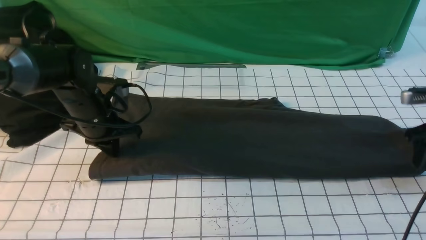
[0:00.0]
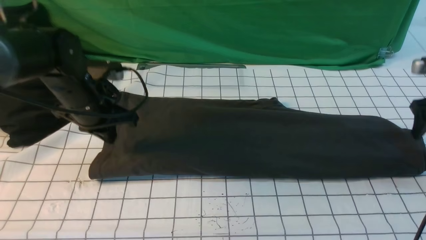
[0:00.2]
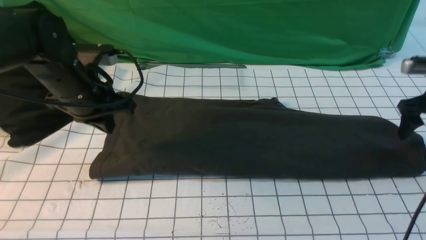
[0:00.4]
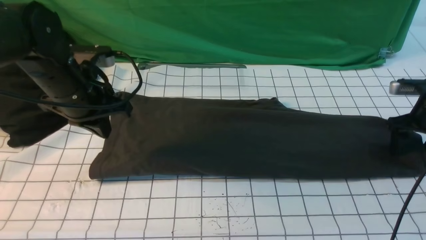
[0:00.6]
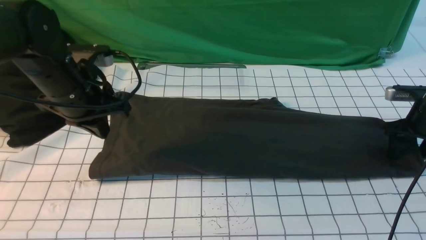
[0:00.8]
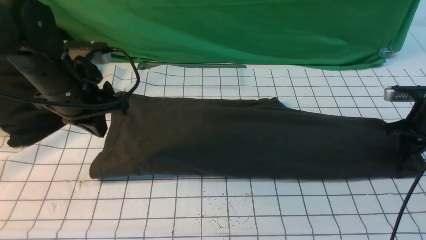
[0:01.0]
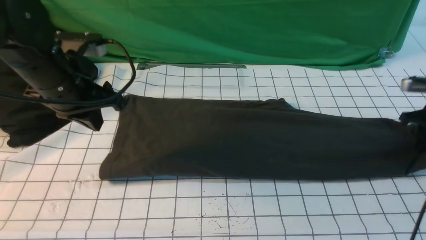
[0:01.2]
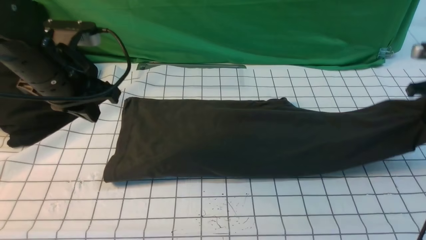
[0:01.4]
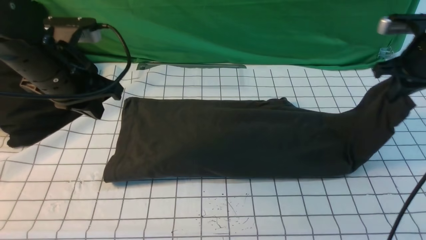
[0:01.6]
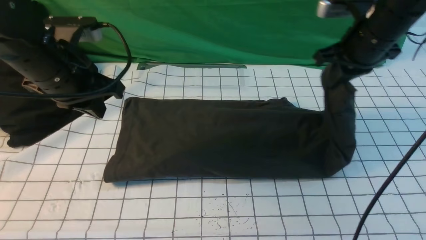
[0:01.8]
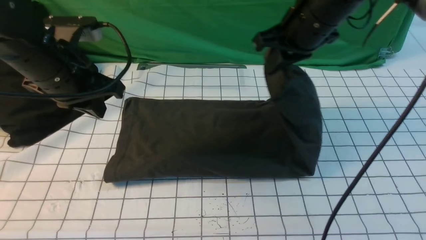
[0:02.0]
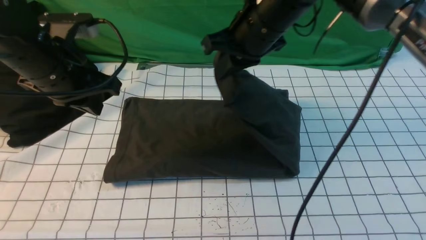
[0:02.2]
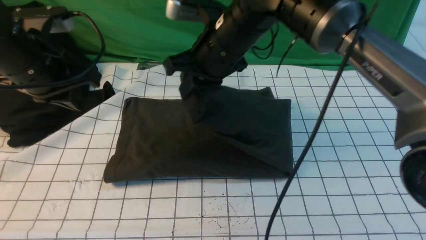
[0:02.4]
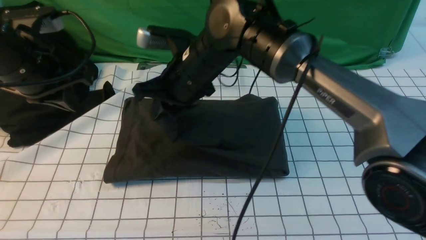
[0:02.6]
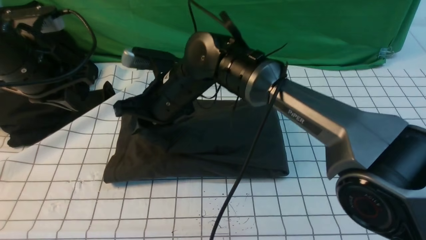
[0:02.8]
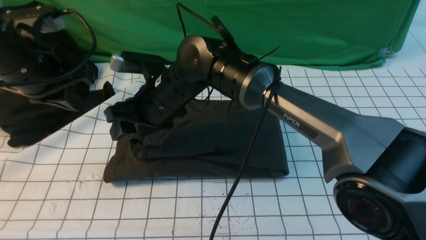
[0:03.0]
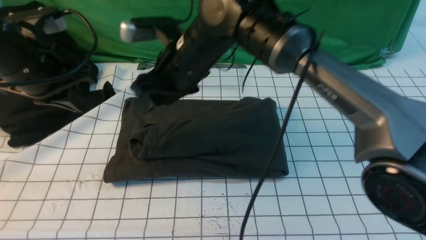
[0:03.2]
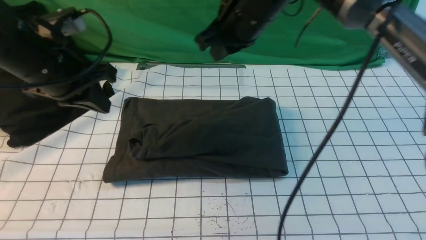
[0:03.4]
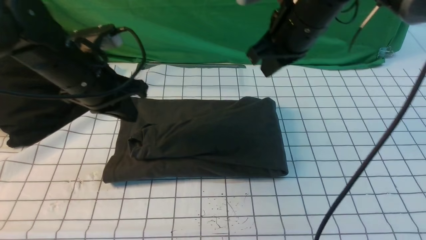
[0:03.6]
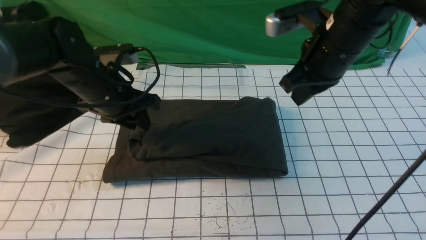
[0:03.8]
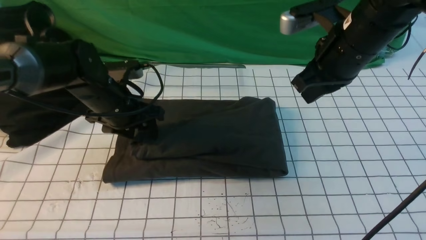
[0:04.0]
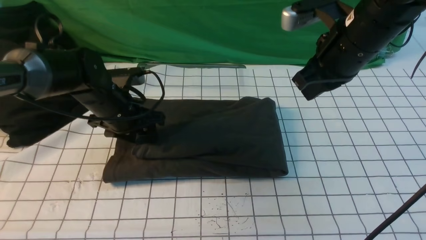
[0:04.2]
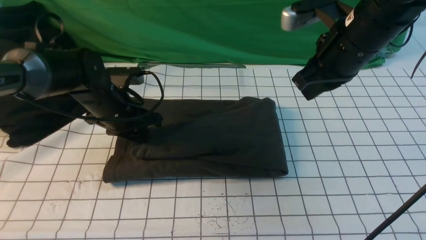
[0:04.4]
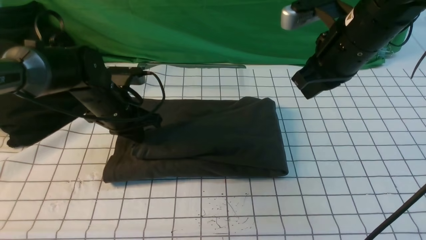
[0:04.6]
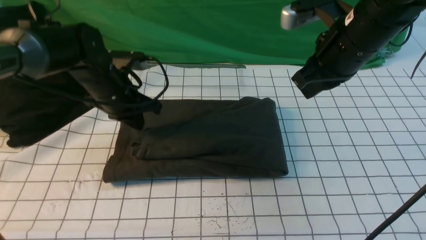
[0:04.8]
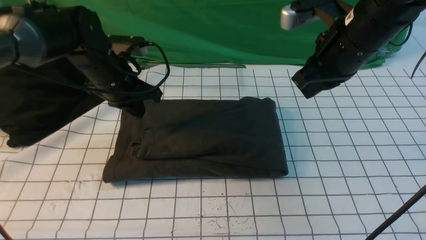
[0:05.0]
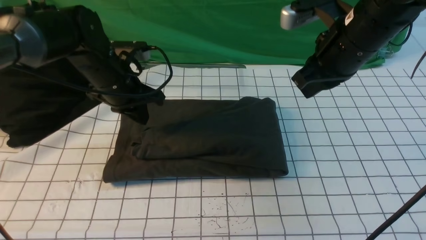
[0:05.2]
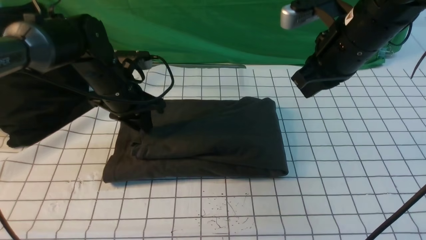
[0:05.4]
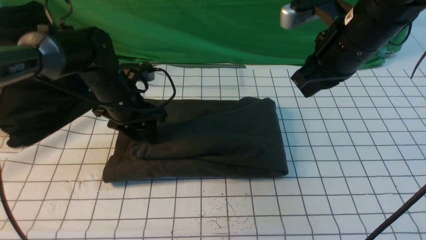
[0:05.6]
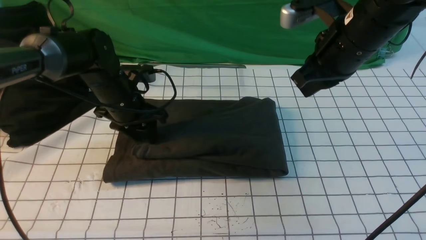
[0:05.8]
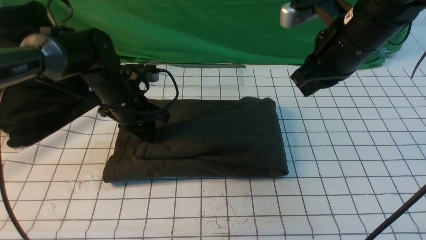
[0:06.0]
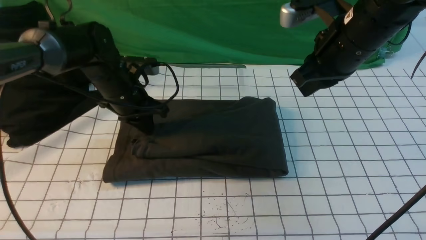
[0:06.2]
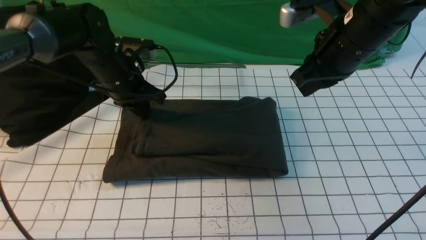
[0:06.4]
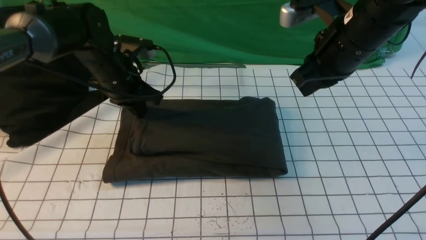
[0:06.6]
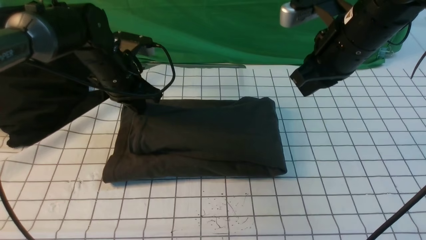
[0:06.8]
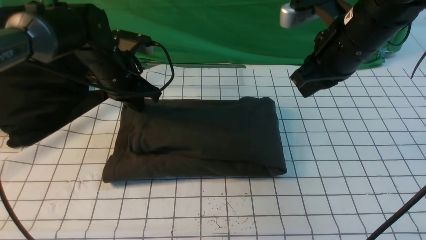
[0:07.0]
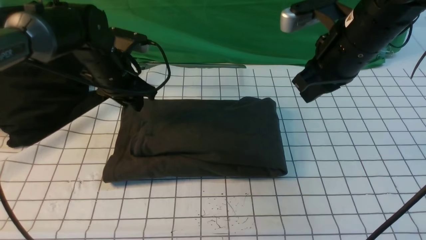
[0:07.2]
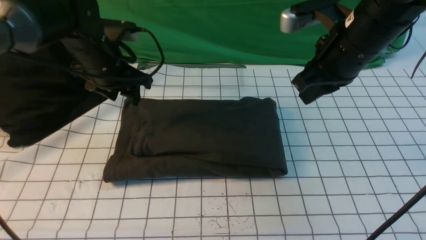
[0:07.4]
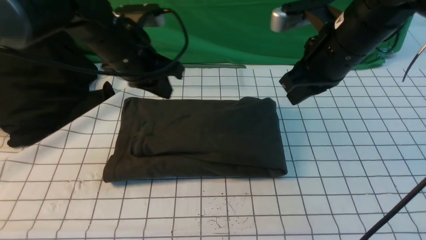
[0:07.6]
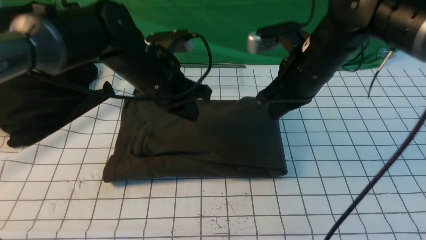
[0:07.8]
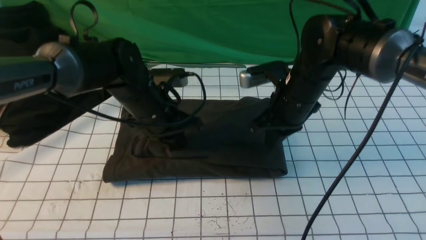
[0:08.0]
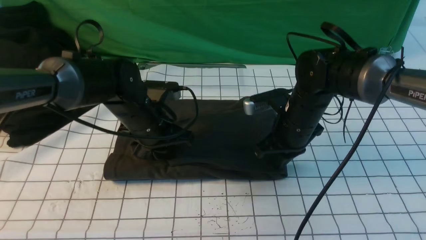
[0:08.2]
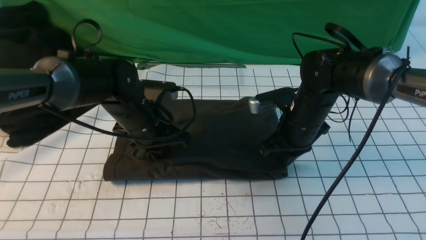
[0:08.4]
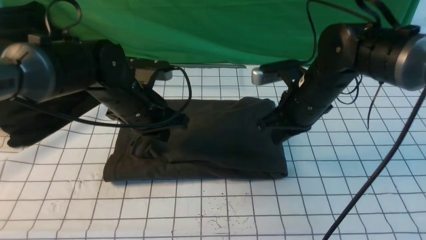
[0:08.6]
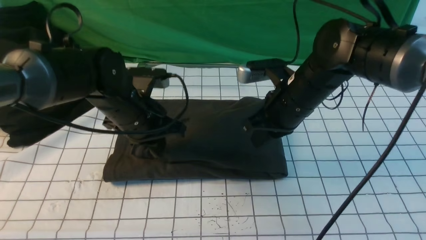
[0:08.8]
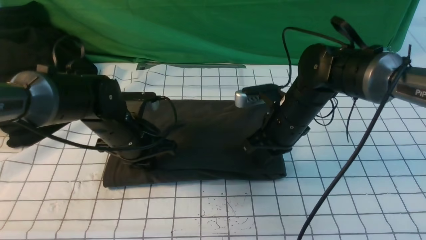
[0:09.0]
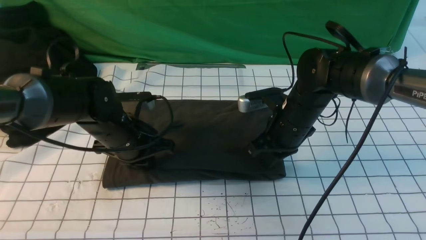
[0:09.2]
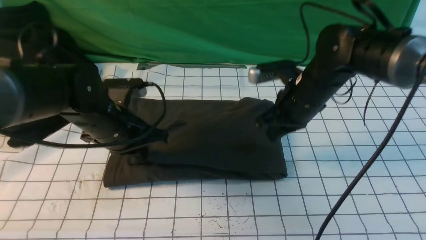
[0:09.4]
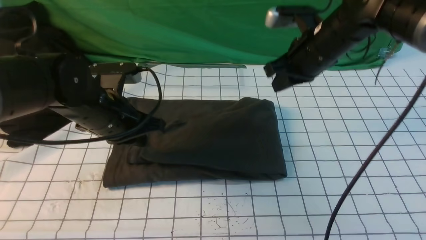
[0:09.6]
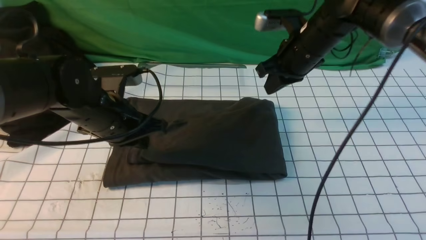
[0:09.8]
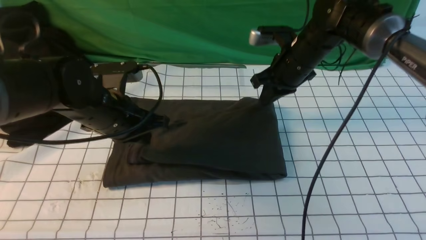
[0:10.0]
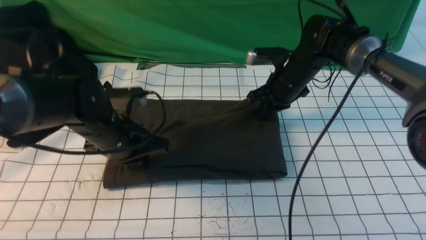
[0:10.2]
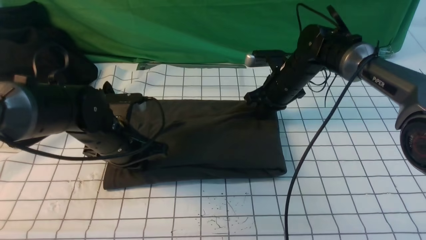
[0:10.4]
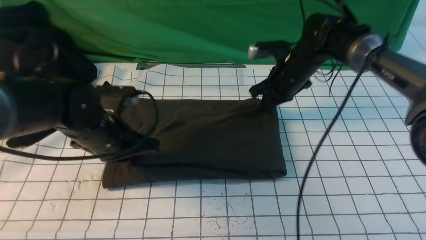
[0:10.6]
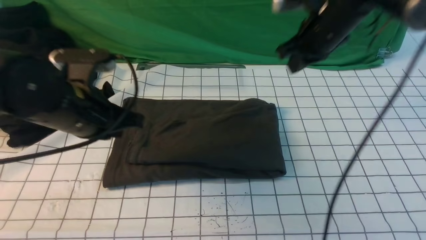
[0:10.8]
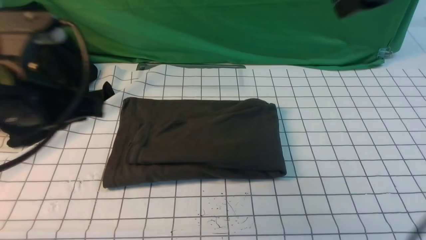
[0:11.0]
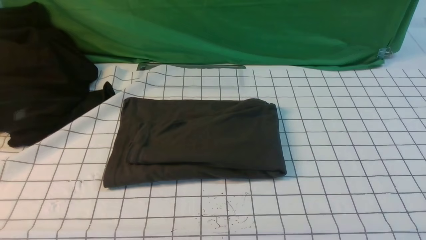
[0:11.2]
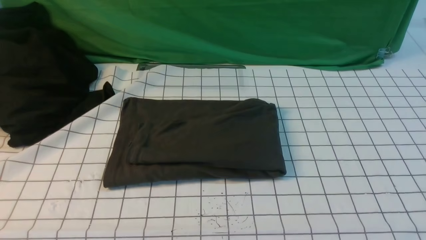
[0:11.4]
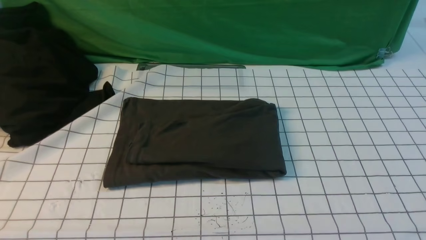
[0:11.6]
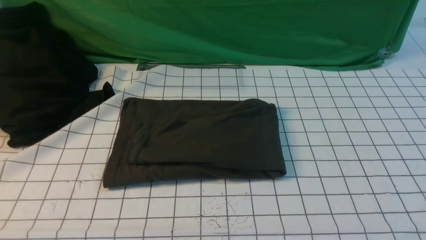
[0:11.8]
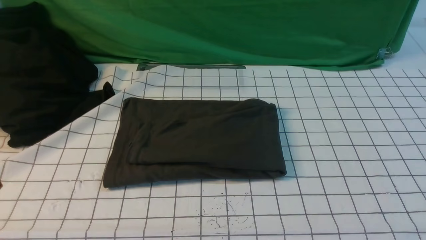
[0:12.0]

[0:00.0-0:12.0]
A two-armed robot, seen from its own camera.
Step, 0:01.4 to 0:03.2: use the right arm to drag the right edge of the fabric to the left and folds it over the left edge.
0:00.0 to 0:01.6: The left gripper goes roughly 10 cm upward and backward, while the right gripper goes some 15 cm to the left and upward, and closes.
0:01.6 to 0:03.0: The right gripper goes about 35 cm to the left, and opens up.
0:03.0 to 0:04.4: The left gripper goes about 15 cm downward, forward and to the right, and opens its fingers. Meanwhile the right gripper is displaced to the right by roughly 25 cm, and closes.
0:04.4 to 0:06.0: The grippers make only small movements.
0:06.0 to 0:07.6: The left gripper heads upward, covering some 10 cm.
0:07.6 to 0:09.0: The two grippers go some 10 cm downward.
0:09.0 to 0:10.4: The right gripper travels forward by approximately 10 cm.
0:10.4 to 0:12.0: The right gripper goes about 50 cm backward and to the right. Meanwhile the left gripper heads backward and upward, covering about 30 cm.

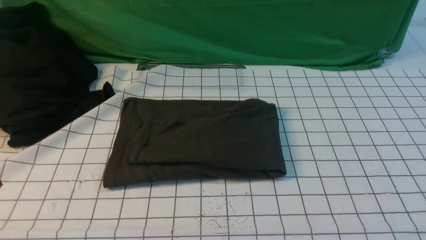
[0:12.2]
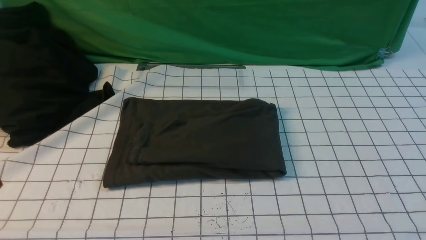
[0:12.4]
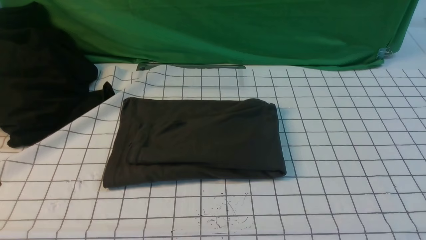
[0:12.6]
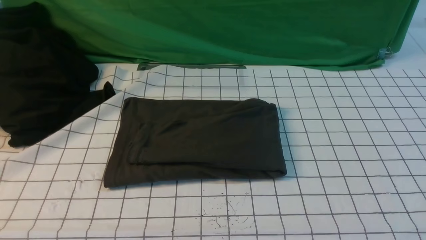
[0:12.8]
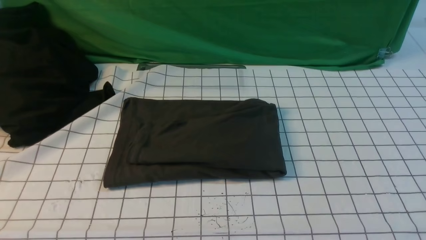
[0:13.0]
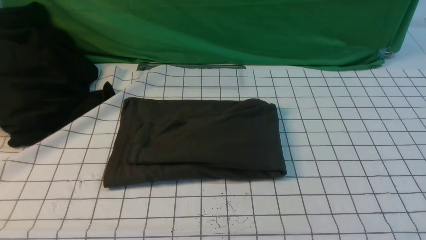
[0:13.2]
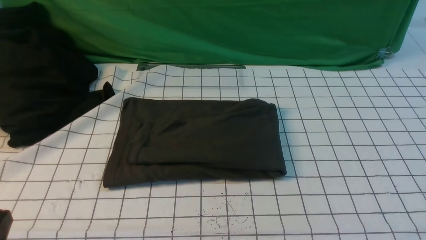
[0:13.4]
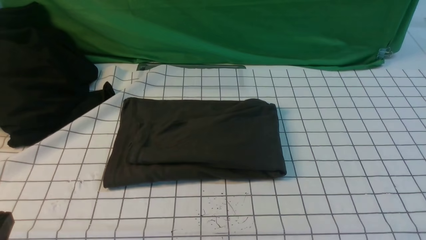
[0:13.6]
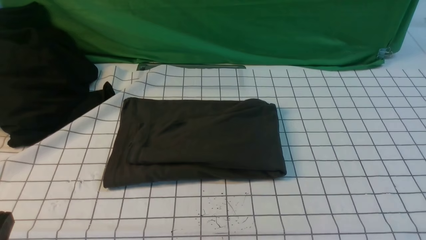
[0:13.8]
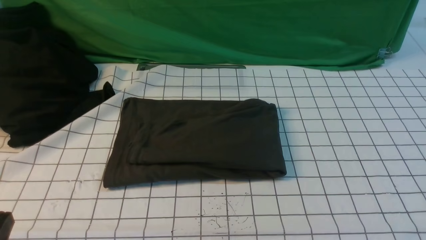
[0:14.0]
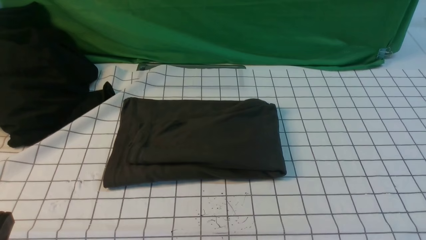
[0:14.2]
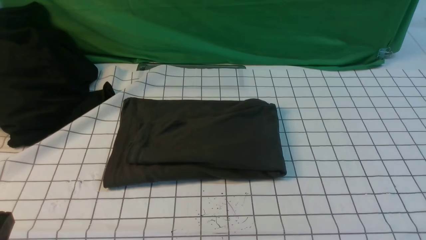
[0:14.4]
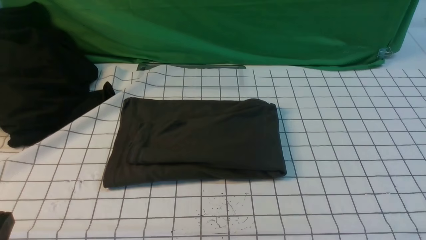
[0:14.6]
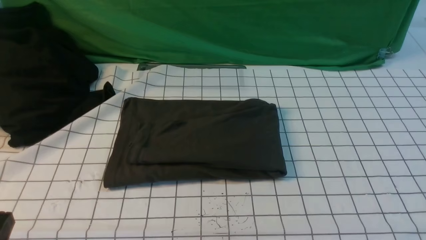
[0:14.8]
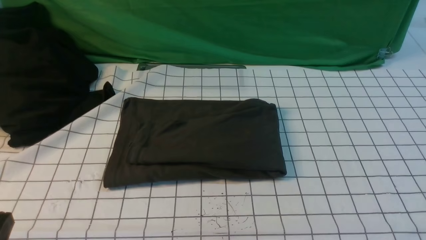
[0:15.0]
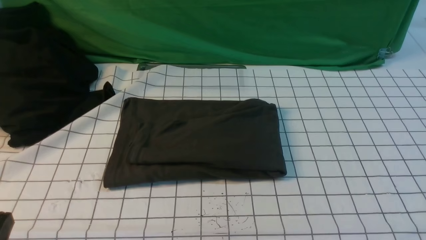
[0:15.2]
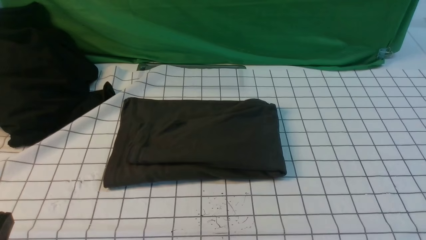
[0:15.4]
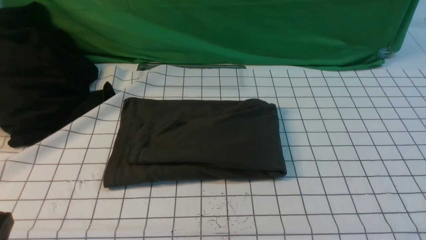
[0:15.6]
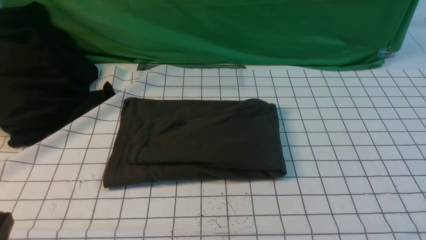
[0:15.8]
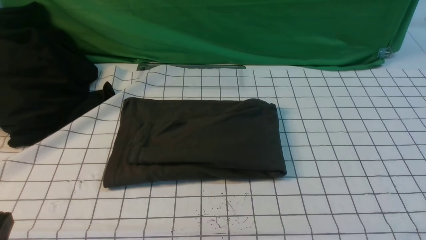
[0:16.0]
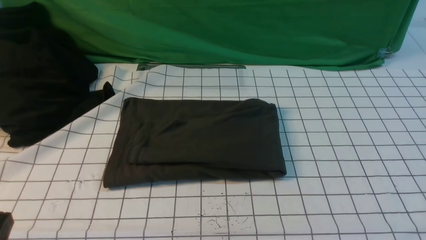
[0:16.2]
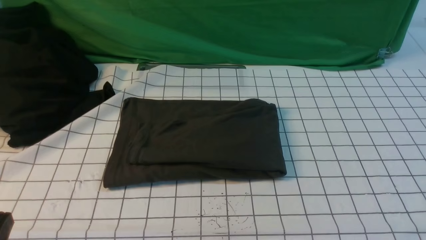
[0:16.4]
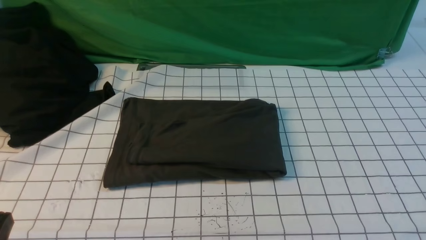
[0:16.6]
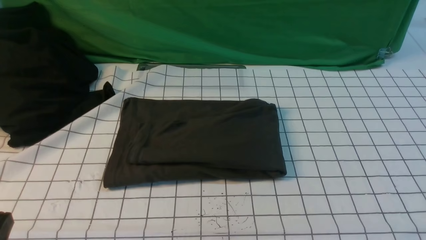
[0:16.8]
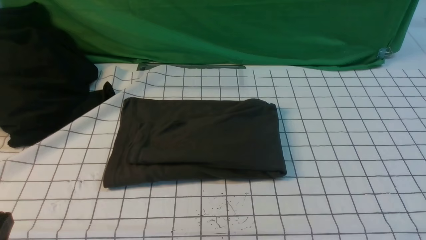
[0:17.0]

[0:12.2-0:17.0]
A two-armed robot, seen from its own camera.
0:15.4 to 0:17.0: Neither gripper changes place.
